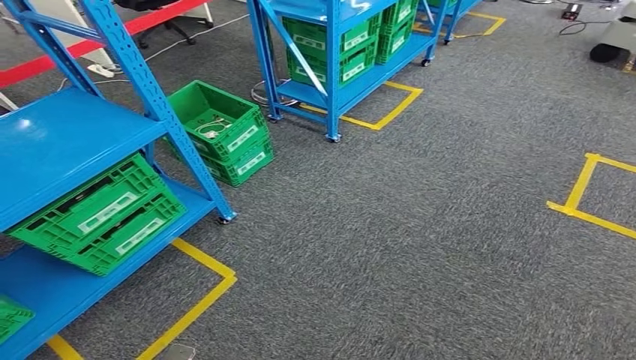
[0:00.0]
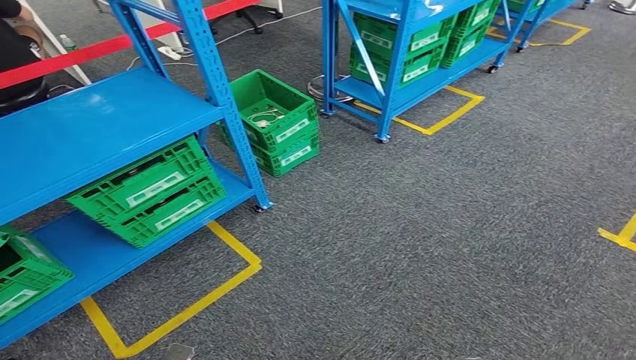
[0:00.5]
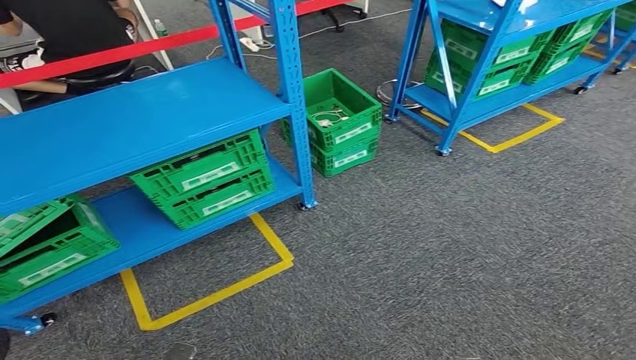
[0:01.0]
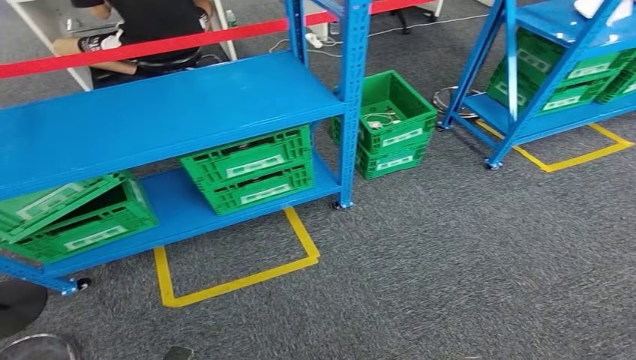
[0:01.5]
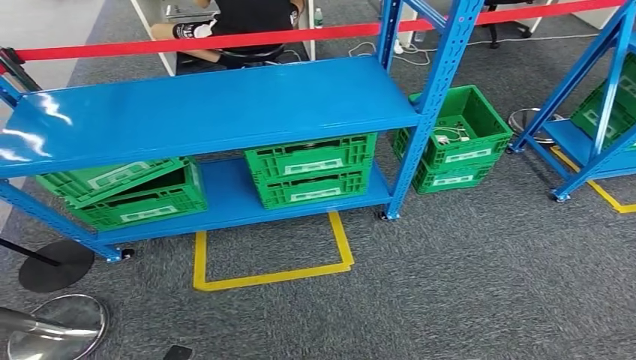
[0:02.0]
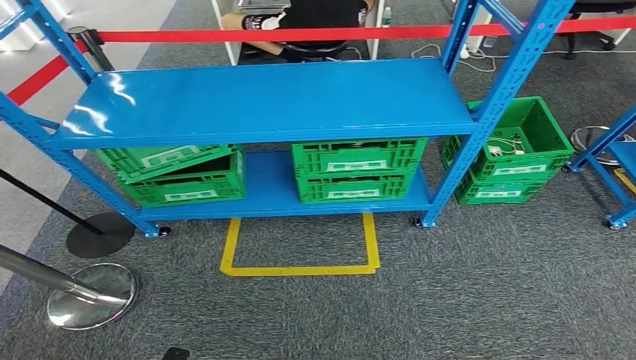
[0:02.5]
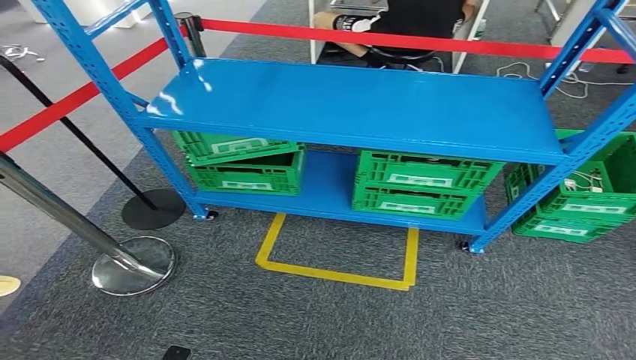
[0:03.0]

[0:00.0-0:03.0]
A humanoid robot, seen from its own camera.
Step, 0:00.0 to 0:02.5: Move to the initial position of the workbench.

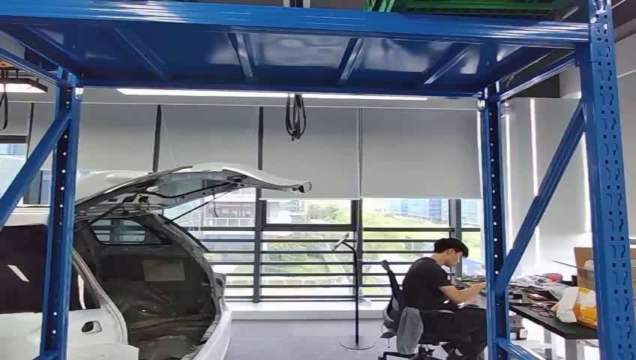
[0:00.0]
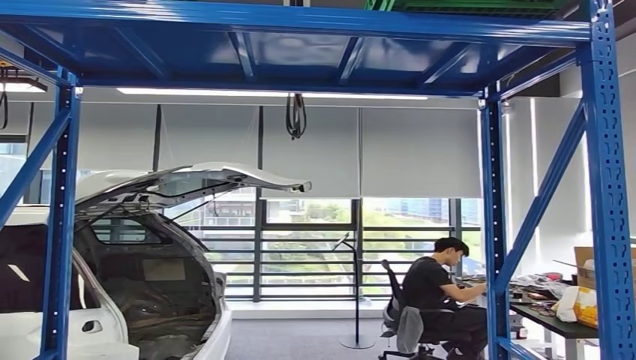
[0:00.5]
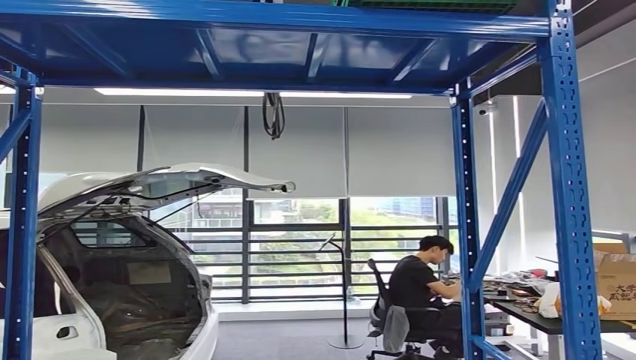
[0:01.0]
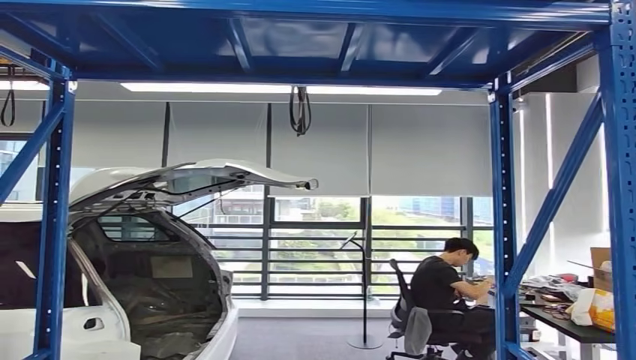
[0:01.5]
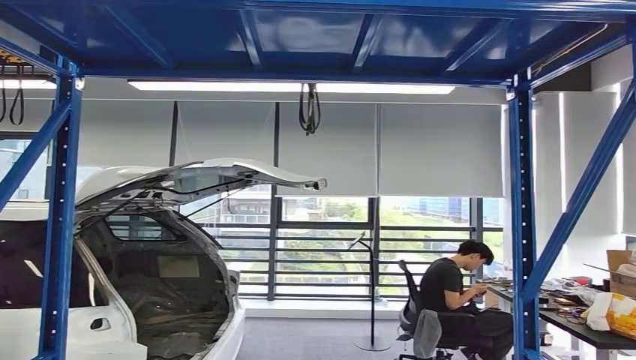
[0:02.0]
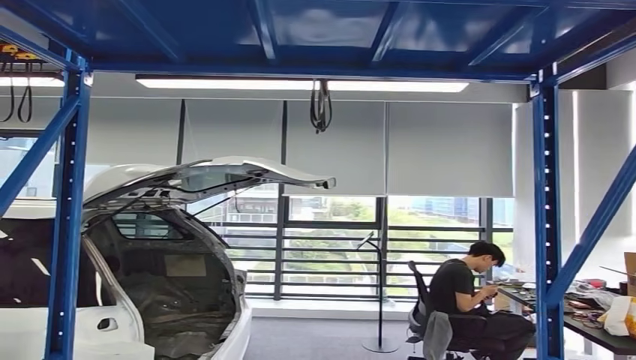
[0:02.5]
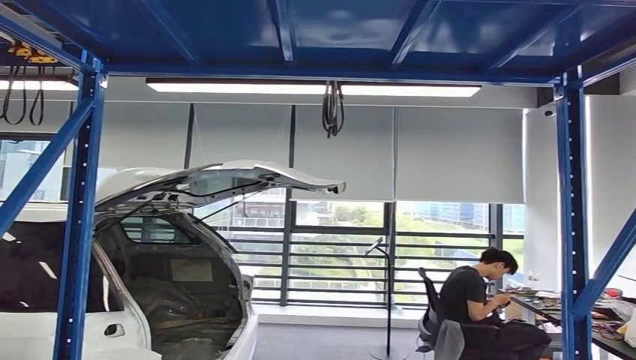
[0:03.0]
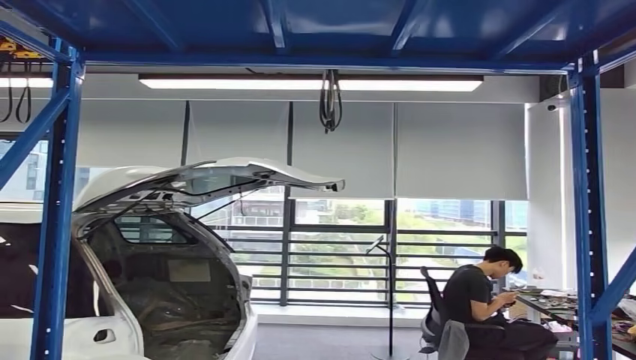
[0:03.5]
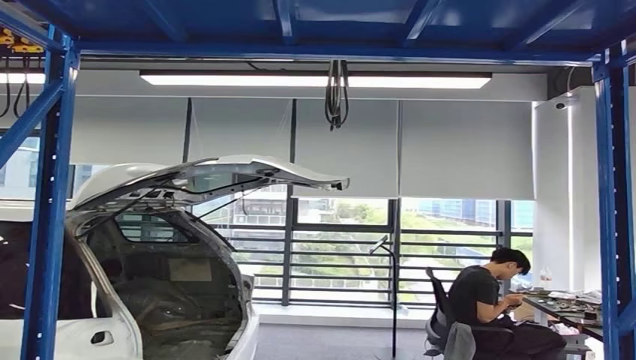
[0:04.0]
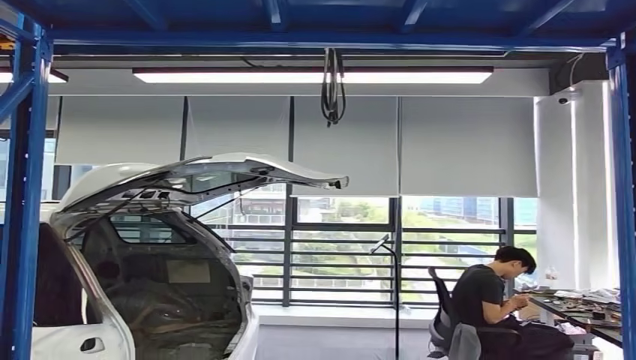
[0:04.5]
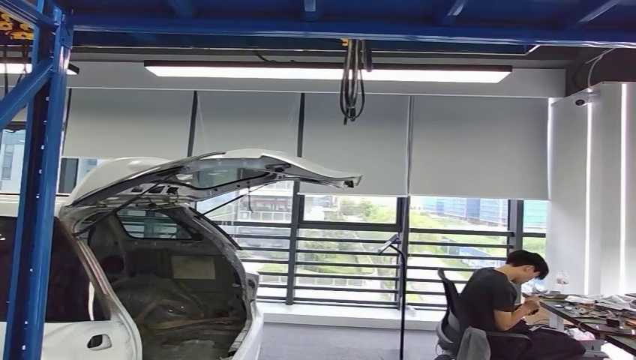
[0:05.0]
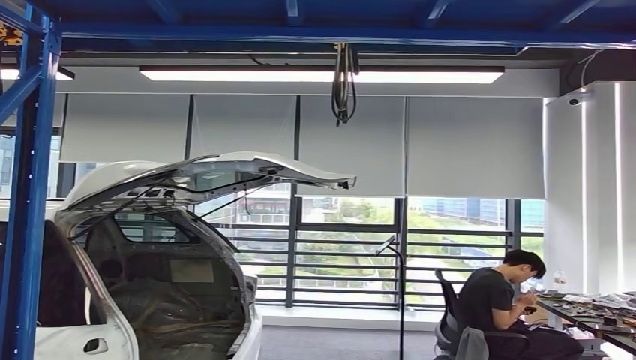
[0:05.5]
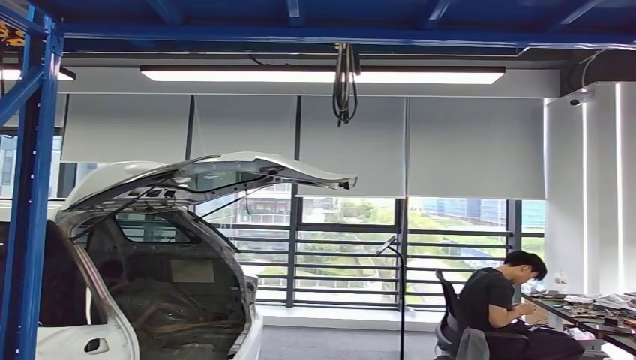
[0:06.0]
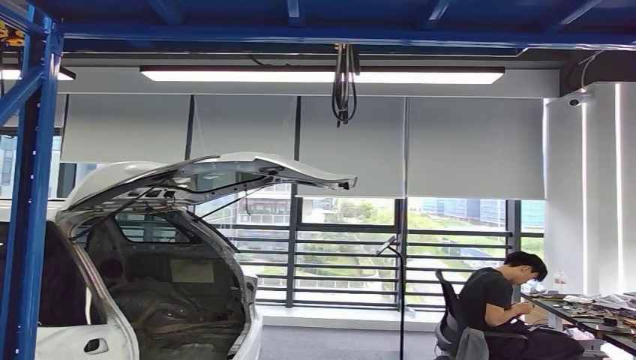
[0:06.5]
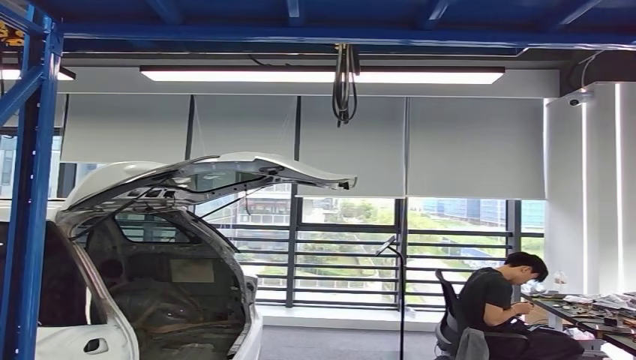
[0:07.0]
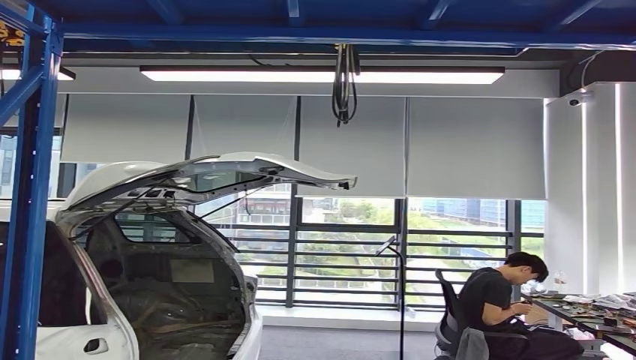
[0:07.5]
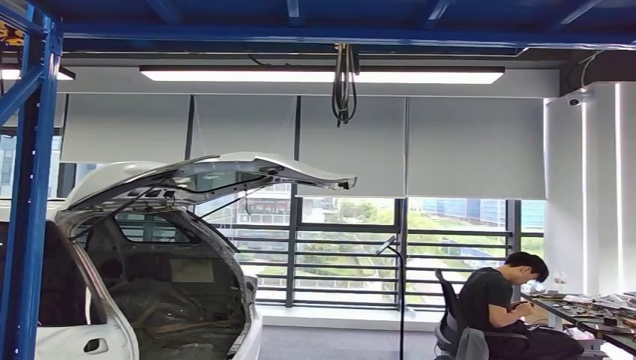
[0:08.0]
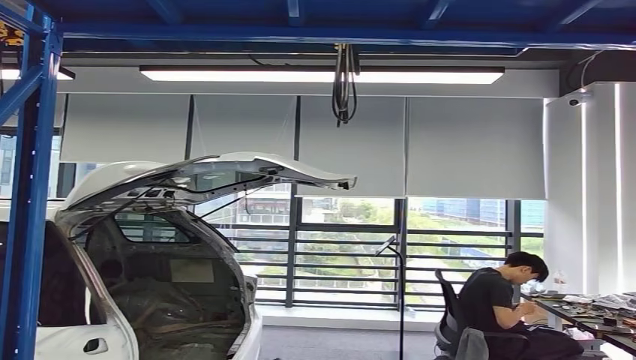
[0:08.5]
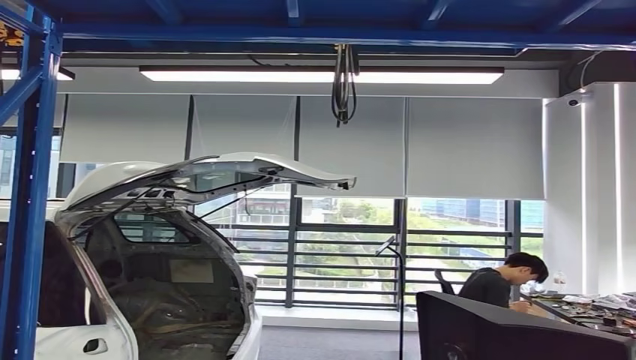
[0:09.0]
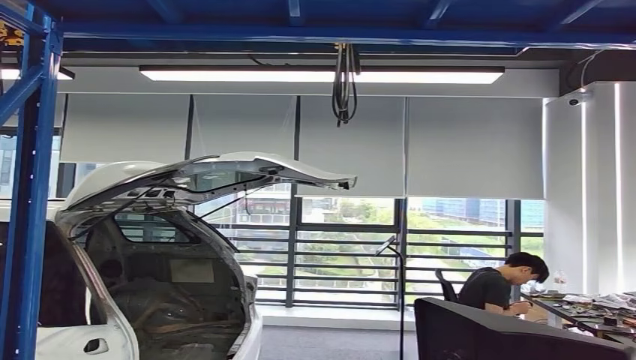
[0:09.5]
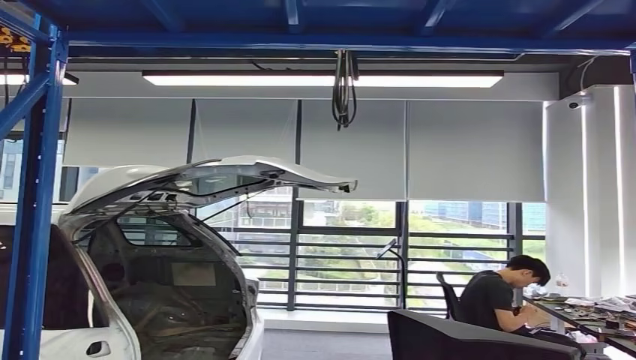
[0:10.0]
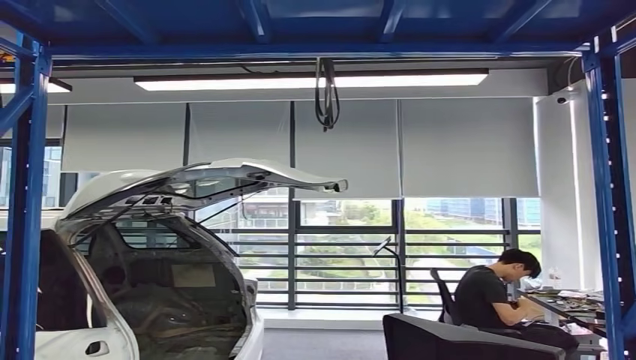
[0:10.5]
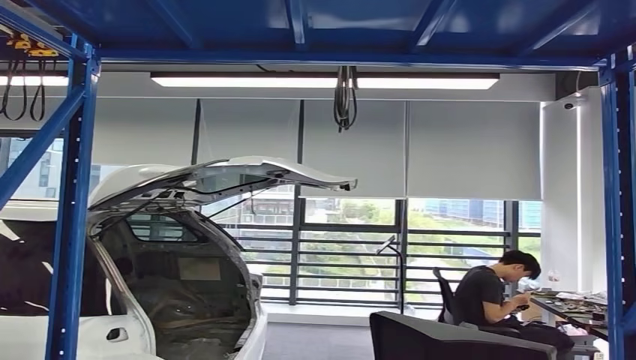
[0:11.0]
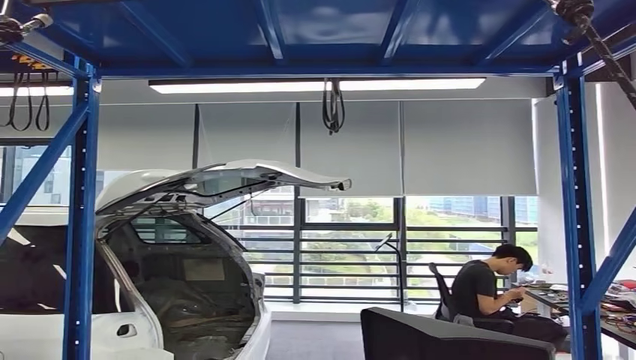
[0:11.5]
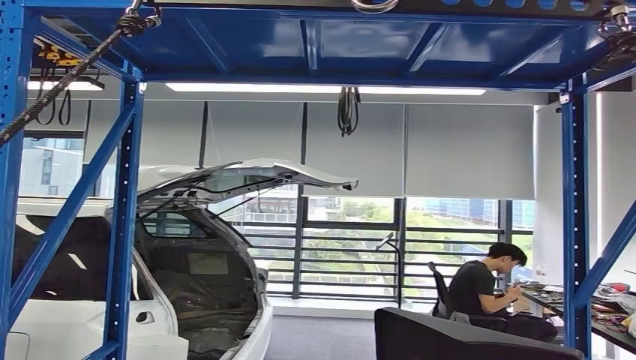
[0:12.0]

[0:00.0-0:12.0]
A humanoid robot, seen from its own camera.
Step, 0:00.0 to 0:08.5: Take small components from the rack.

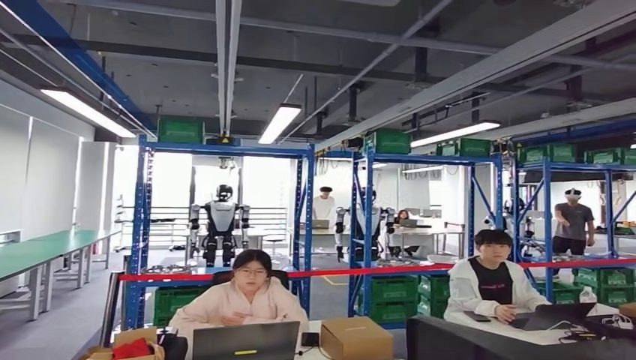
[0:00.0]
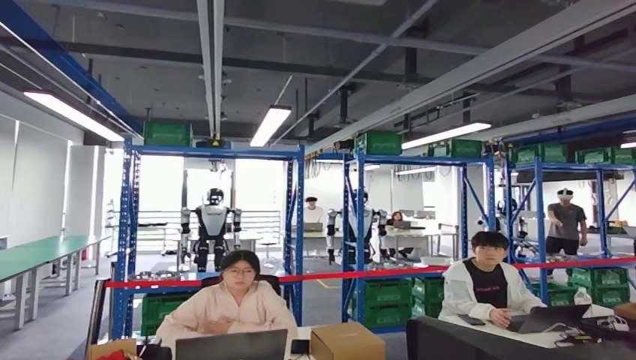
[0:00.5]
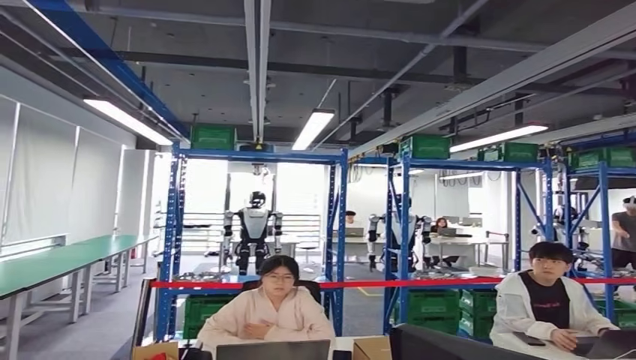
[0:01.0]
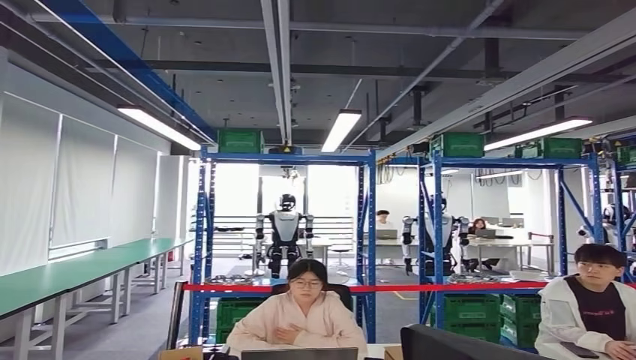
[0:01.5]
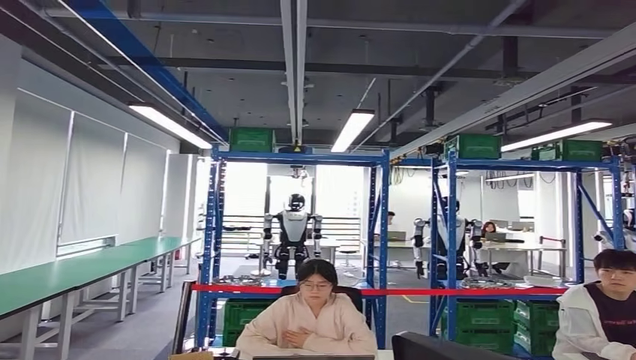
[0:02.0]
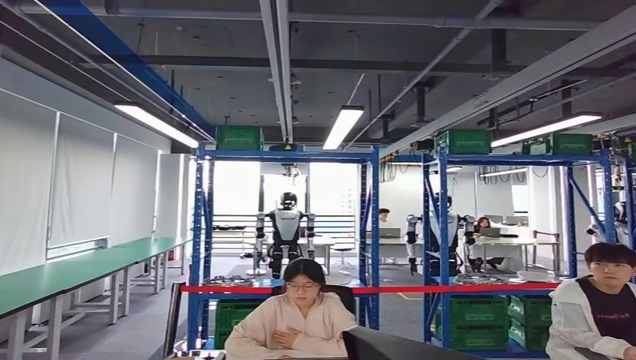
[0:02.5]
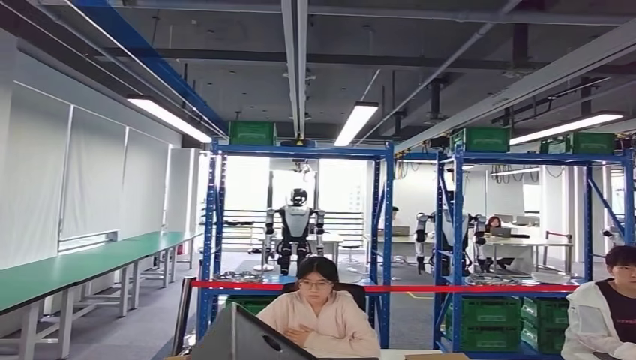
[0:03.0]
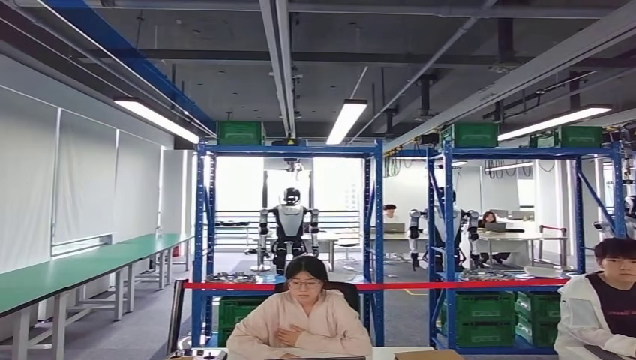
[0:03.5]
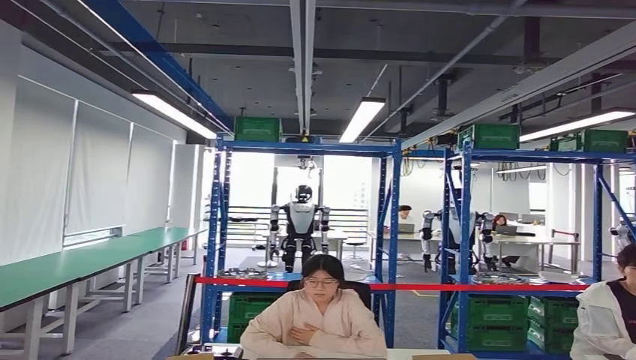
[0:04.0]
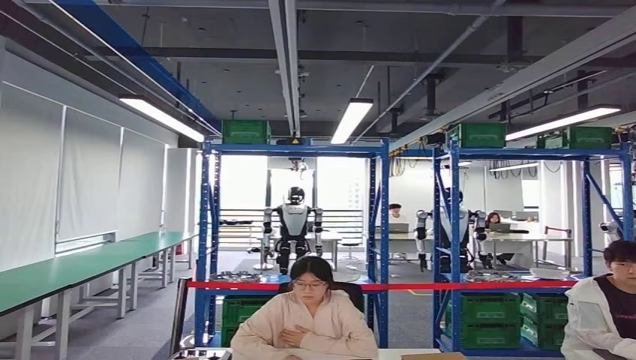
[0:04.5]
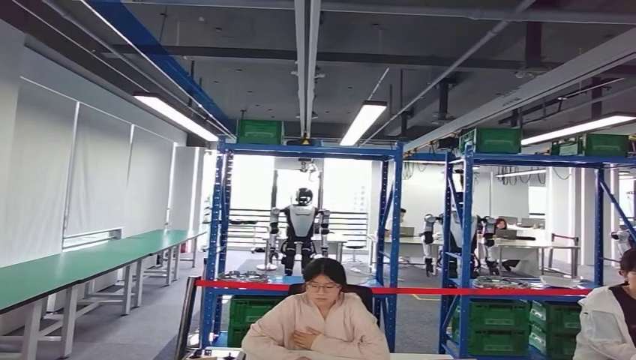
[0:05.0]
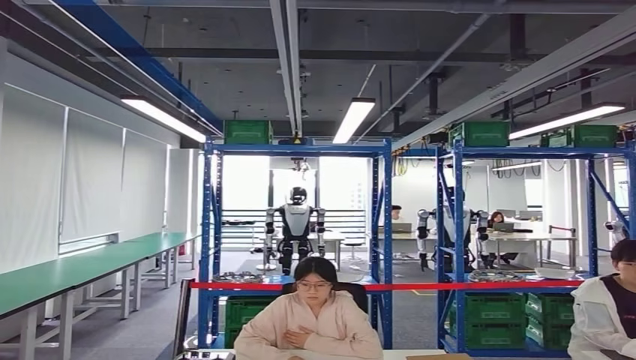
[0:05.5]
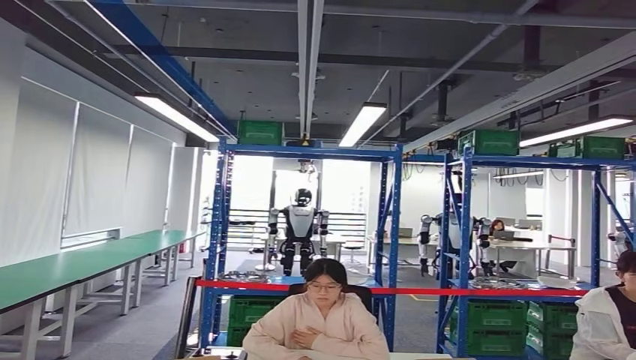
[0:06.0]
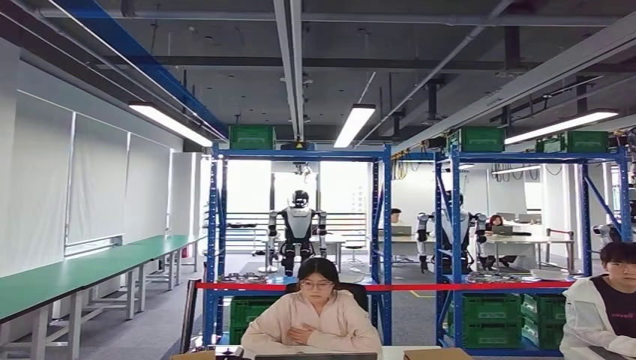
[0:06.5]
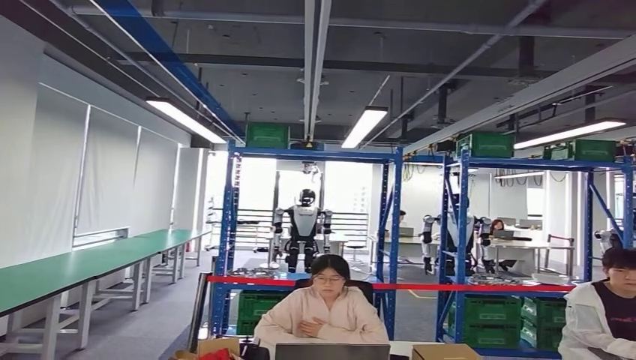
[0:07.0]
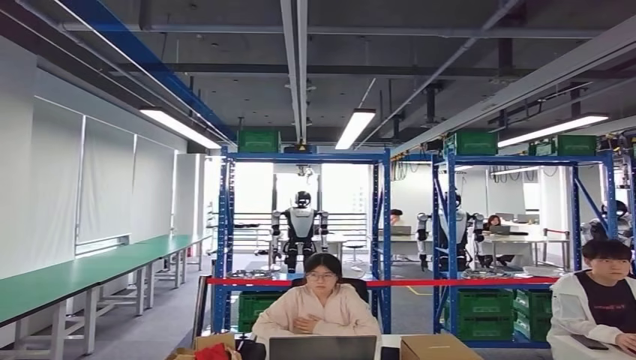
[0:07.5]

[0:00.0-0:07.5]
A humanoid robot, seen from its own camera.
Step, 0:00.0 to 0:02.5: Move the small parts to the workbench.
Step, 0:03.0 to 0:06.5: Insert the small parts into the corresponding holes on the workbench.
